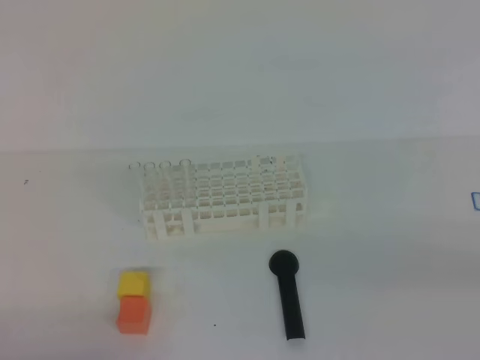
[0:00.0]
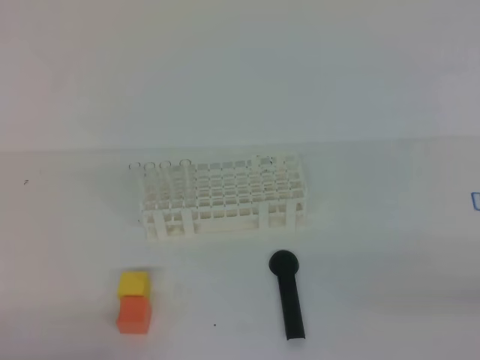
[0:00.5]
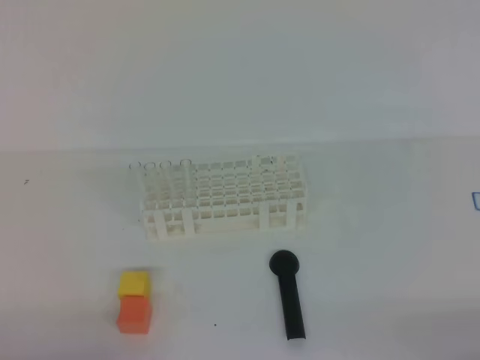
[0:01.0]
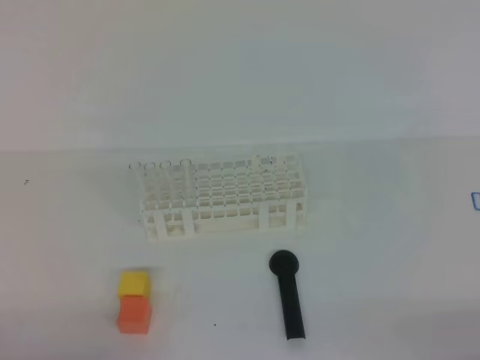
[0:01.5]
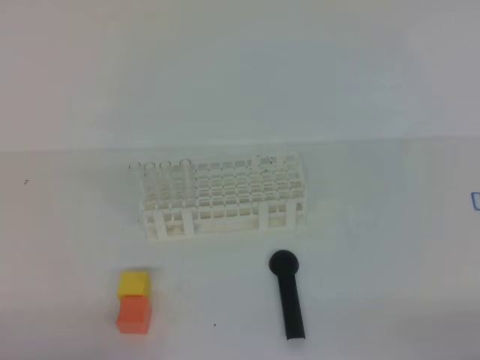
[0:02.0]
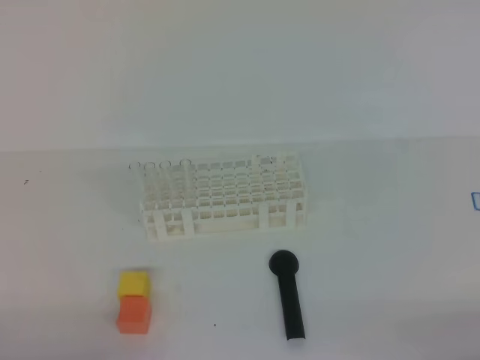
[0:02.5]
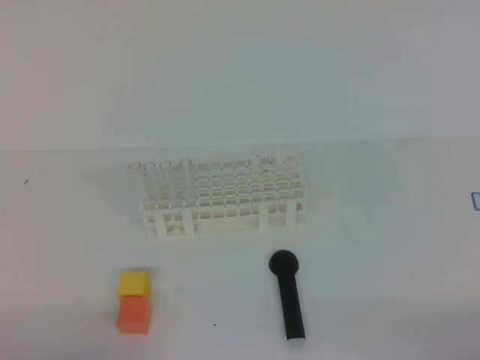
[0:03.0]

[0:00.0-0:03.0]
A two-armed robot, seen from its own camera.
0:01.5 to 0:03.0: Both grippers stay about where they are.

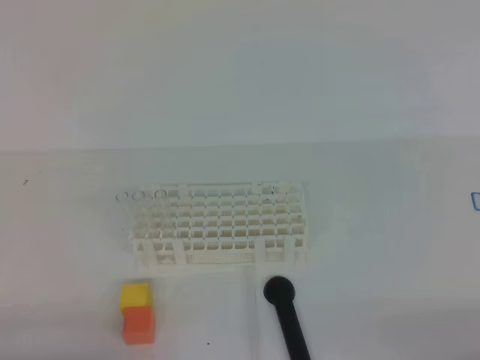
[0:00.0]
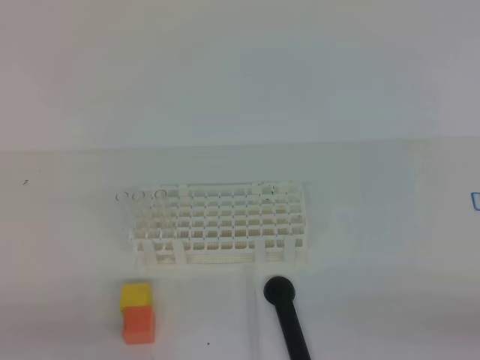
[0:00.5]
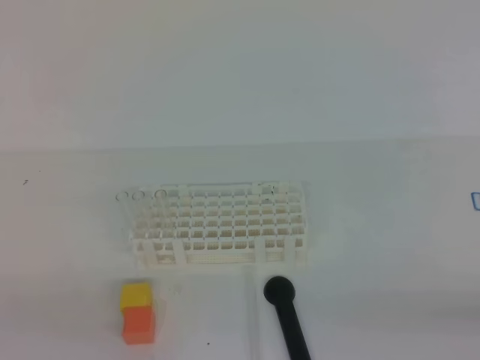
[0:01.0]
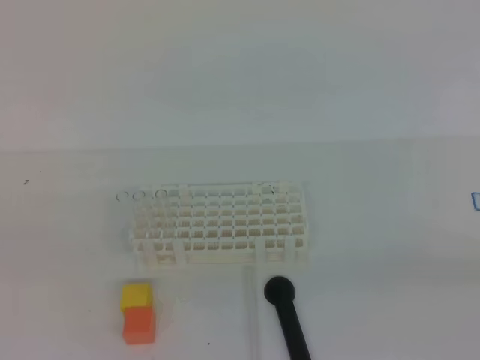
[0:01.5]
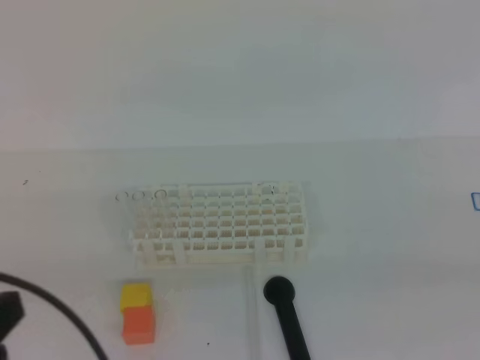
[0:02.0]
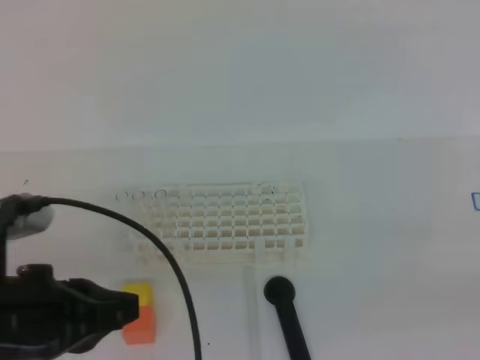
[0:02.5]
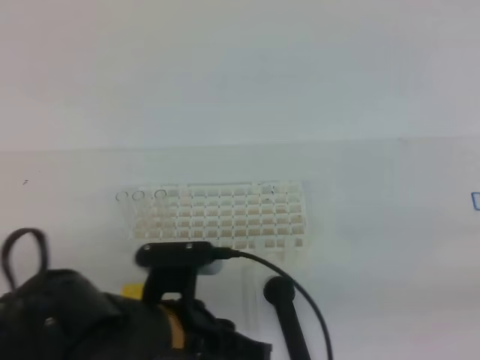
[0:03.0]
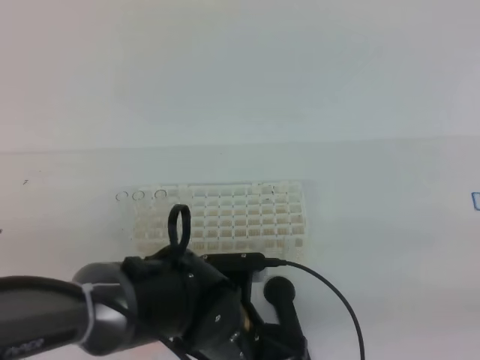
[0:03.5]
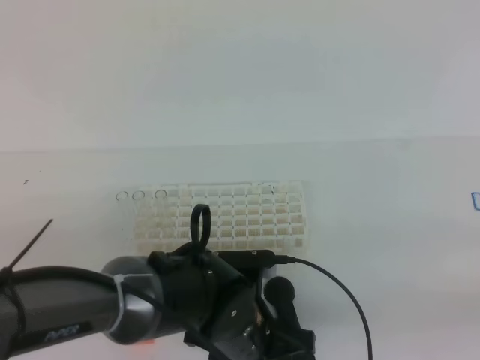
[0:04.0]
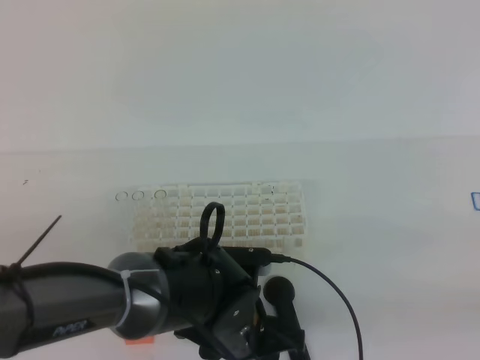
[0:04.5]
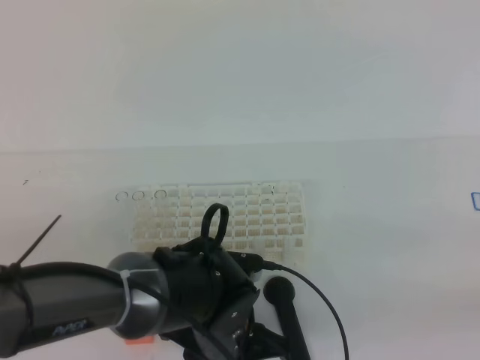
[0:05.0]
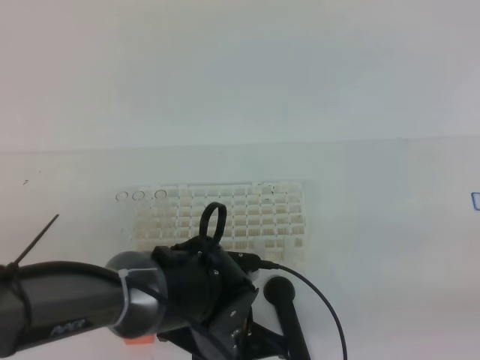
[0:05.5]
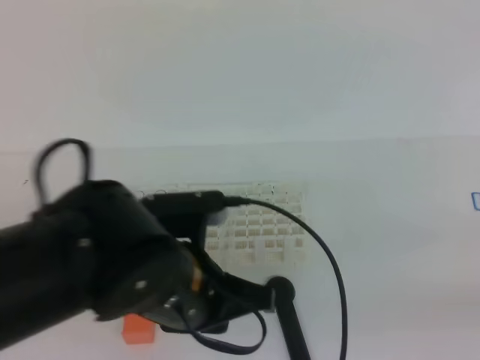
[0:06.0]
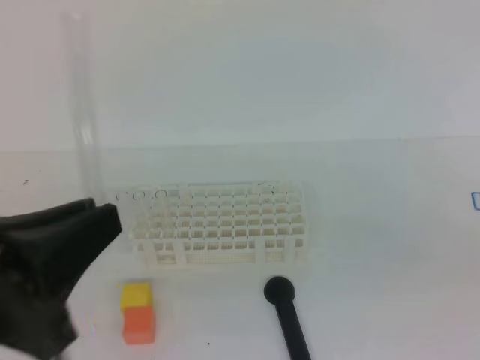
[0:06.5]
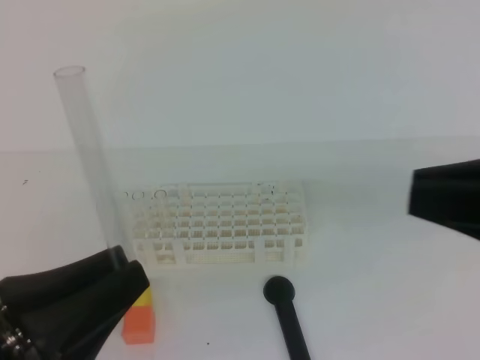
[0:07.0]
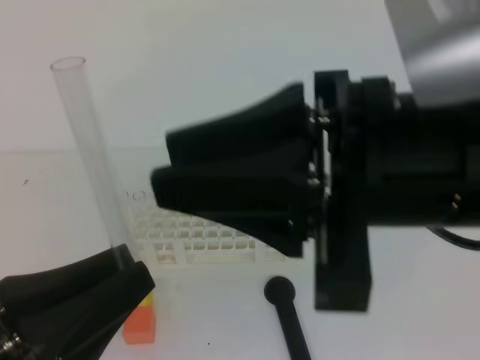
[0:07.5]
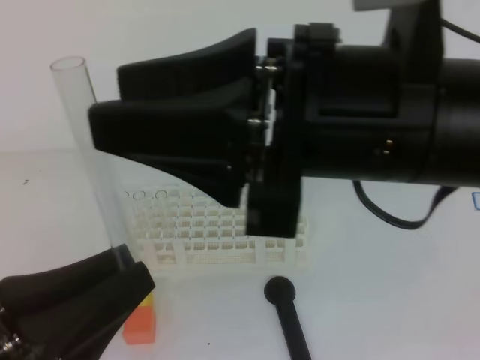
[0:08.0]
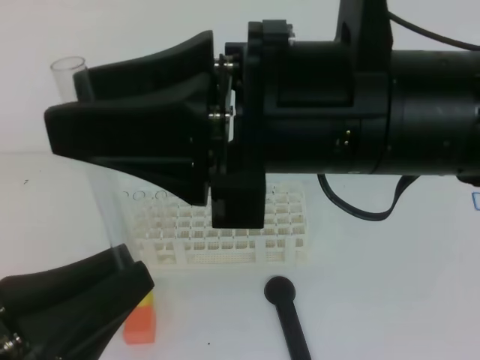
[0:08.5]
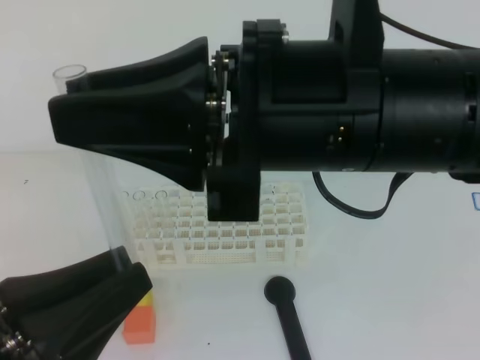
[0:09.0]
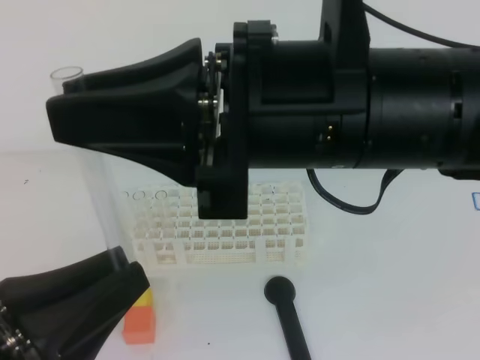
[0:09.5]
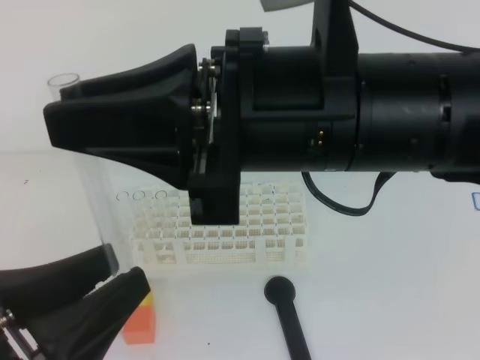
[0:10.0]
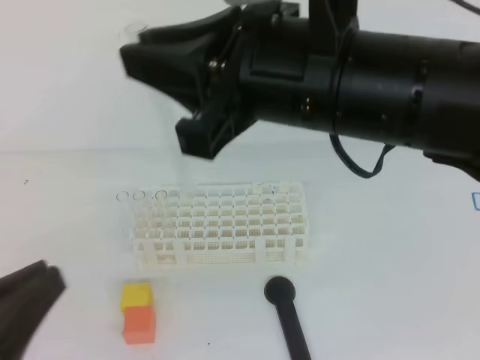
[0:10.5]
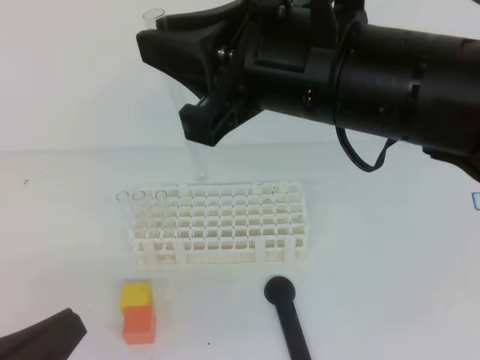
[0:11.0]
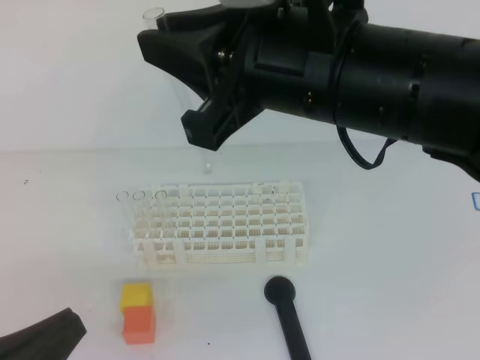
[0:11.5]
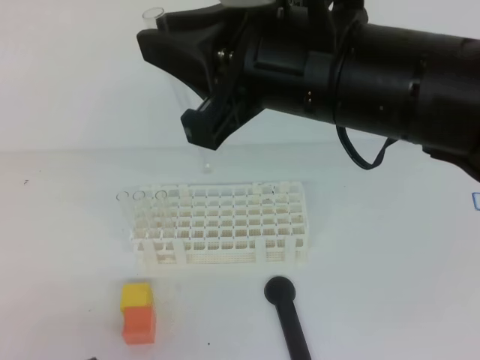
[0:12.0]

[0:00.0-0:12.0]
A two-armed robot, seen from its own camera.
0:00.0 to 0:02.0: Both grippers travel together upward, some 15 cm.
0:02.0 to 0:04.0: The left gripper moves to the right, downward and forward, roughly 30 cm, and opens.
0:04.0 to 0:06.0: The left gripper is displaced upward by about 15 cm, and closes.
0:06.0 to 0:08.0: The left gripper goes approximately 20 cm backward, to the left and upward. Meanwhile the right gripper heads to the left, upward and forward, covering some 30 cm, and opens its fingers.
0:08.0 to 0:10.0: The left gripper opens its fingers; the right gripper closes its fingers.
0:10.0 to 0:12.0: The left gripper travels downward by about 10 cm, and closes up.

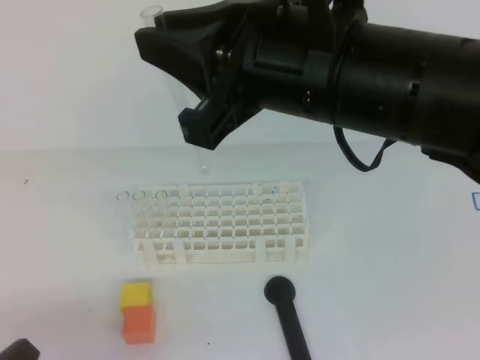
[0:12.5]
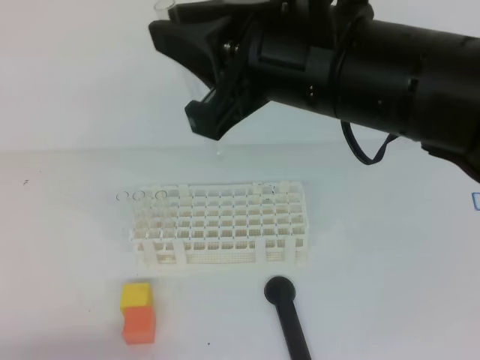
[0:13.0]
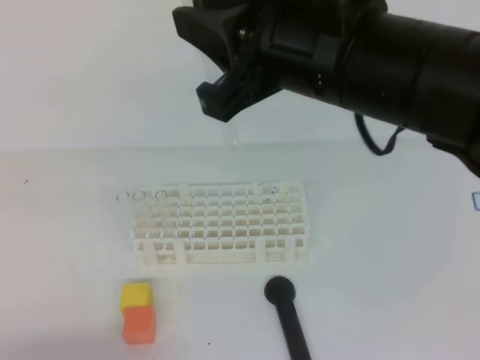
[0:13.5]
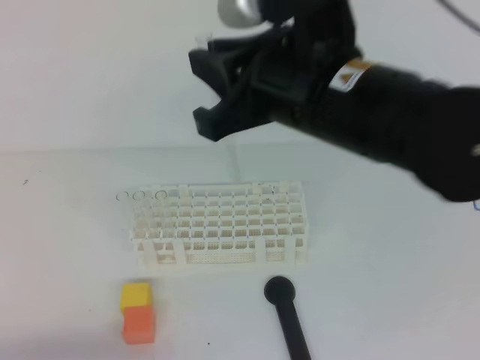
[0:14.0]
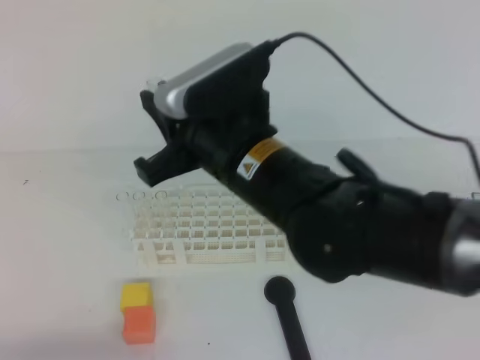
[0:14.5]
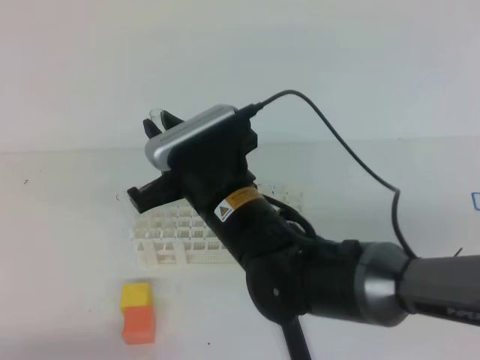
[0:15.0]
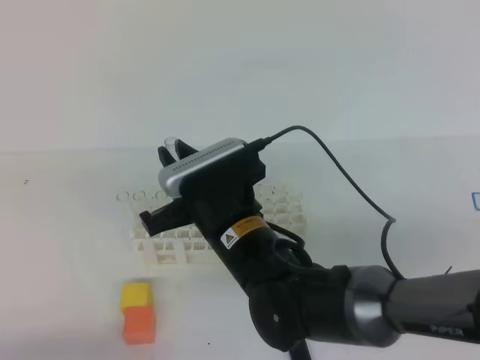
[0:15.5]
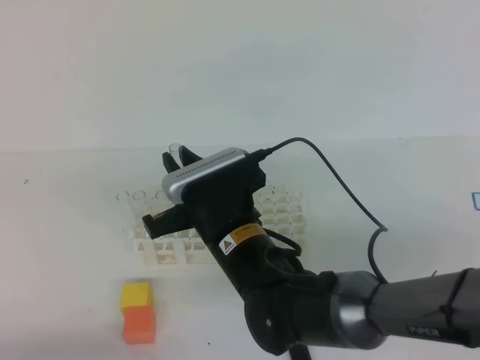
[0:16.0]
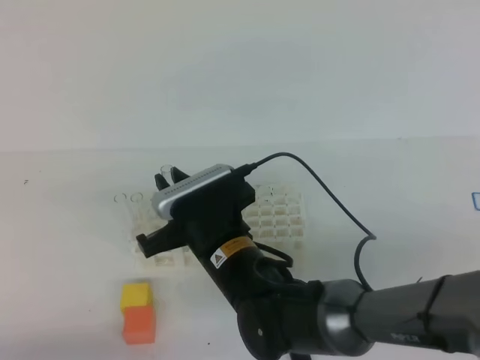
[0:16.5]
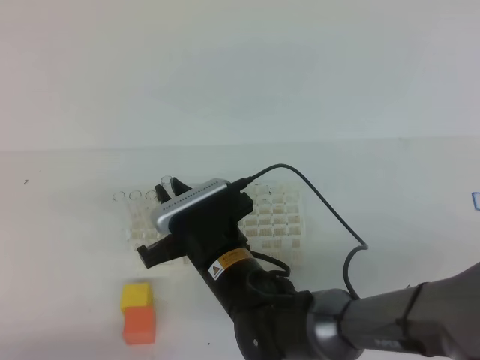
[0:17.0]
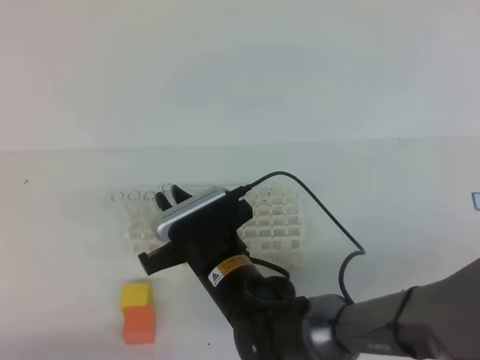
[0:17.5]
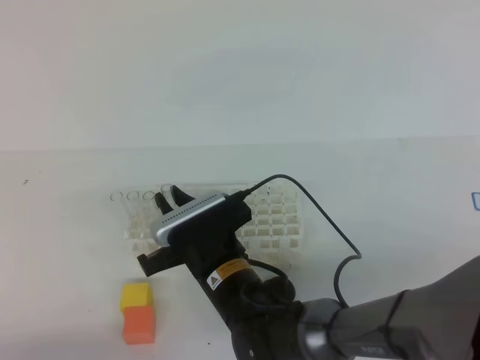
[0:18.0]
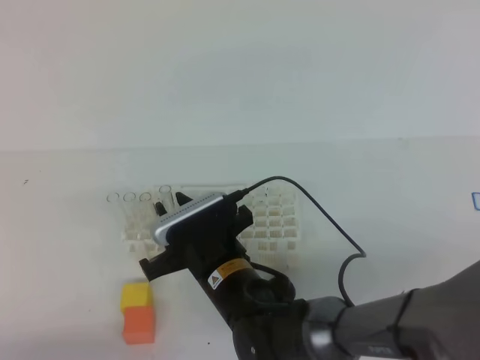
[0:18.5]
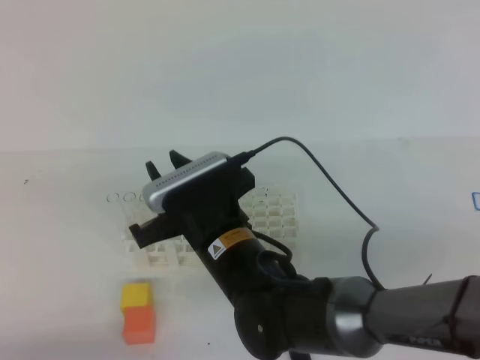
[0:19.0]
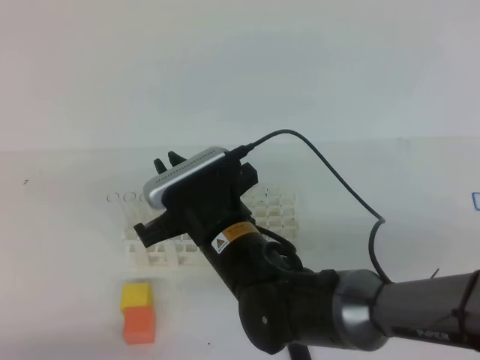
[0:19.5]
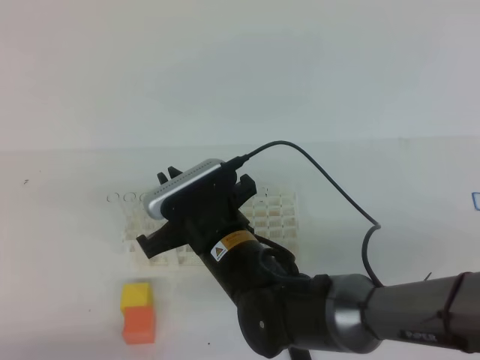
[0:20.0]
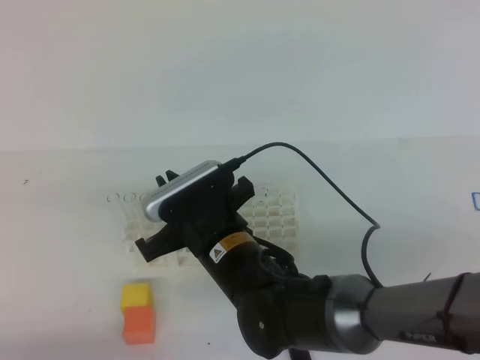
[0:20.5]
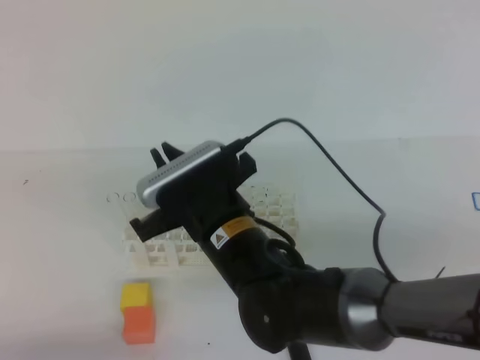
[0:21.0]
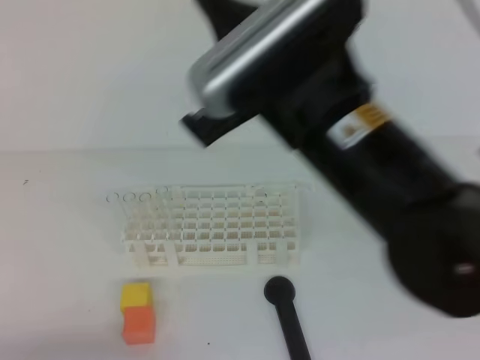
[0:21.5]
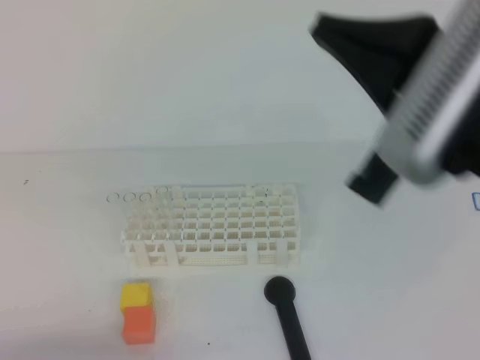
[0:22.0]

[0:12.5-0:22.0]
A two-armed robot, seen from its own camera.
0:12.5 to 0:14.5: The right gripper goes about 10 cm downward and to the left.
0:14.5 to 0:16.5: The right gripper shifts about 15 cm downward.
0:16.5 to 0:18.0: There are only small adjustments of the grippers.
0:18.0 to 0:20.0: The right gripper moves upward, some 5 cm, and opens and closes again.
0:20.0 to 0:22.0: The right gripper goes roughly 30 cm upward, to the right and backward.
